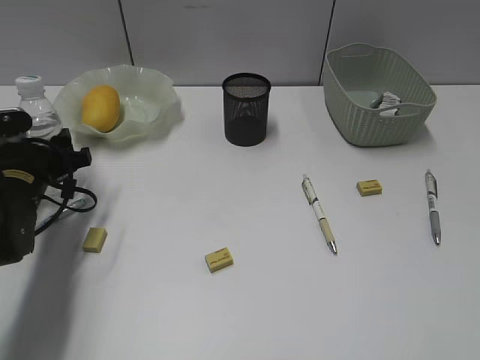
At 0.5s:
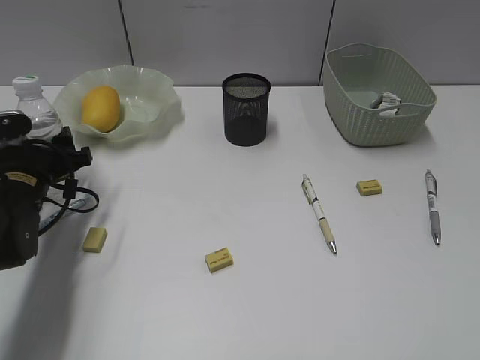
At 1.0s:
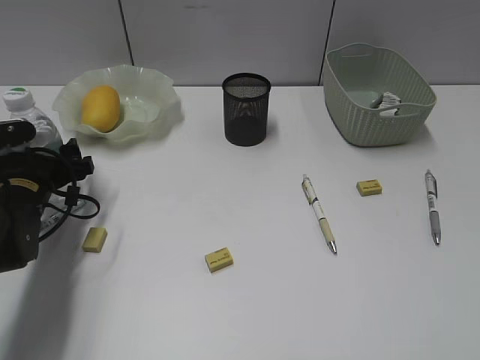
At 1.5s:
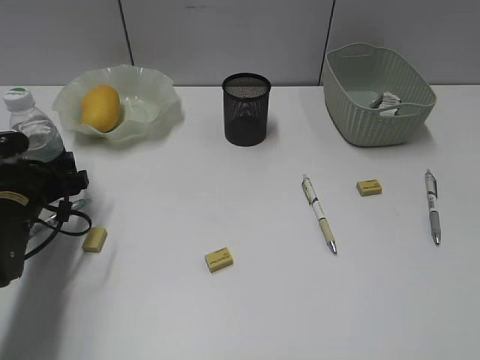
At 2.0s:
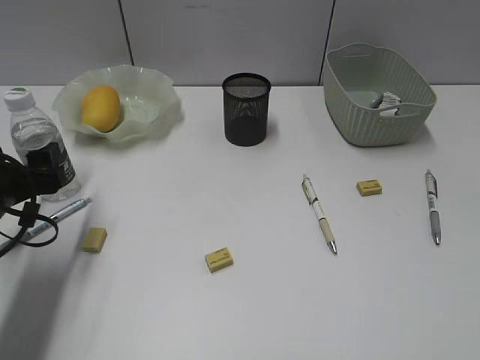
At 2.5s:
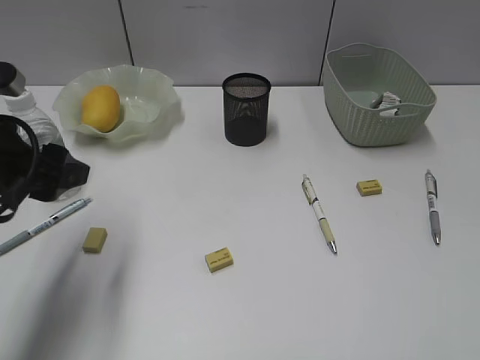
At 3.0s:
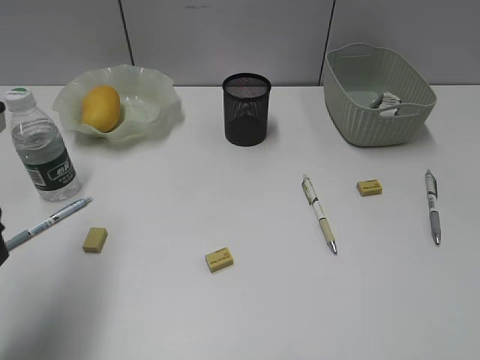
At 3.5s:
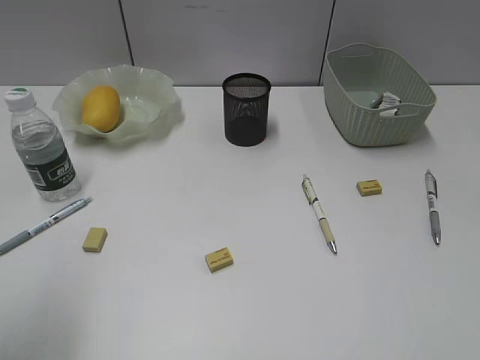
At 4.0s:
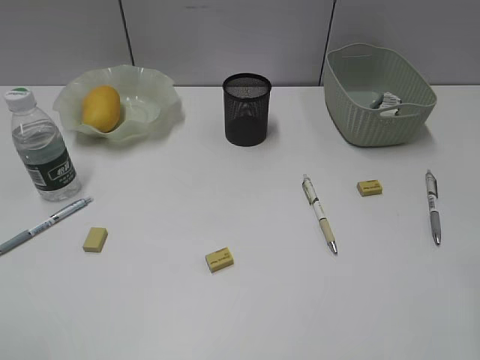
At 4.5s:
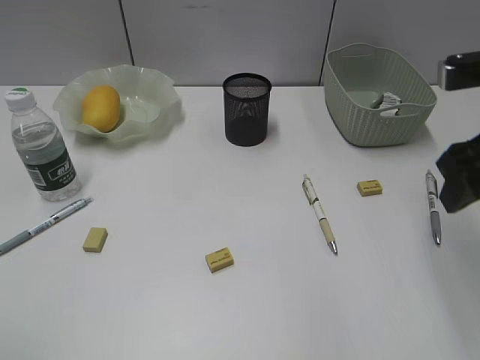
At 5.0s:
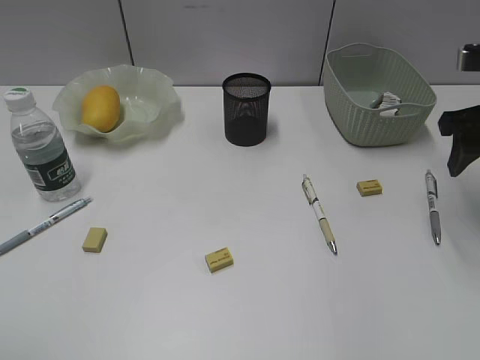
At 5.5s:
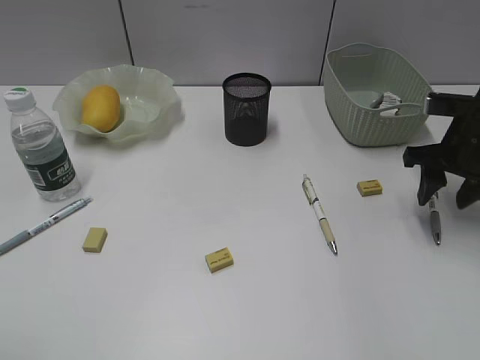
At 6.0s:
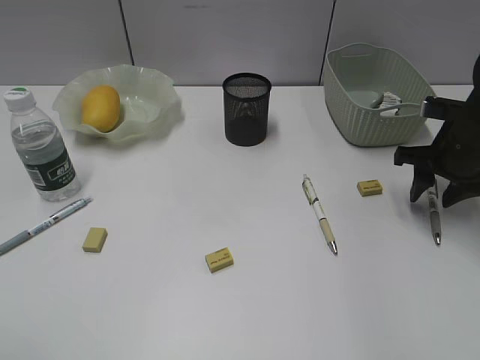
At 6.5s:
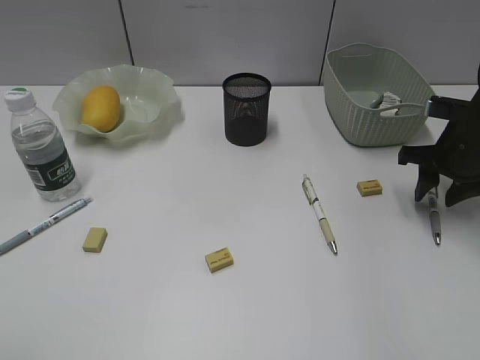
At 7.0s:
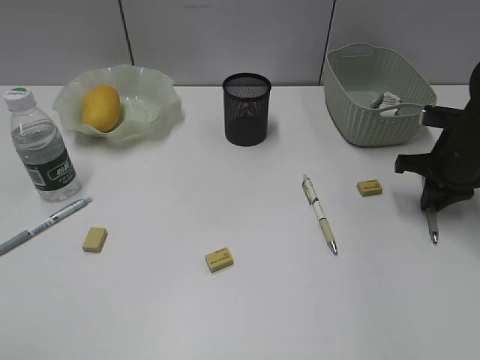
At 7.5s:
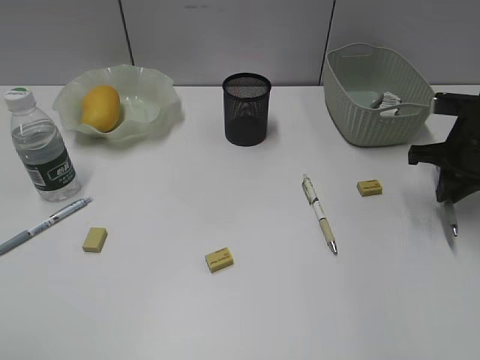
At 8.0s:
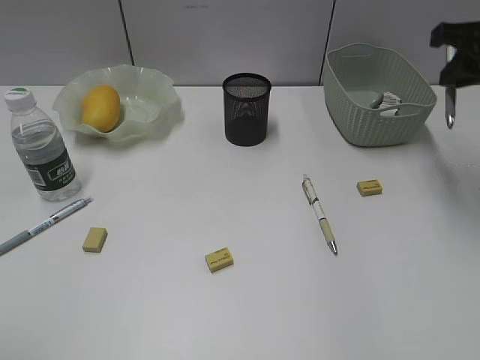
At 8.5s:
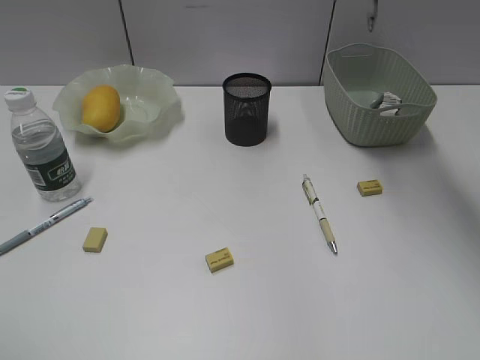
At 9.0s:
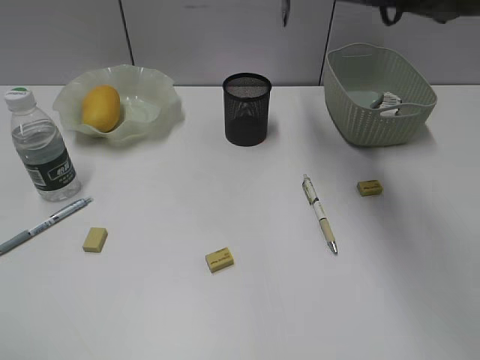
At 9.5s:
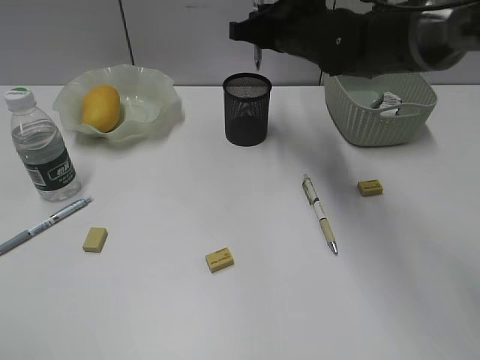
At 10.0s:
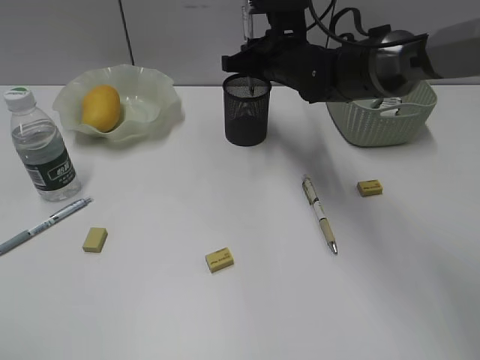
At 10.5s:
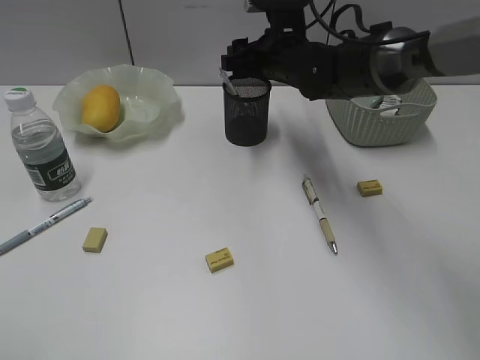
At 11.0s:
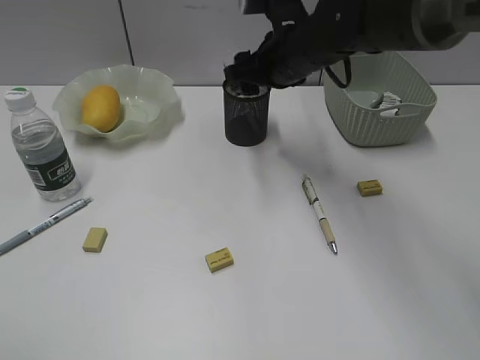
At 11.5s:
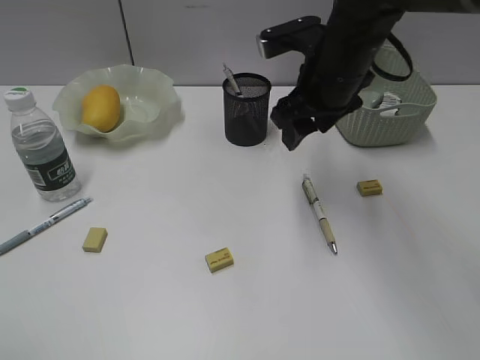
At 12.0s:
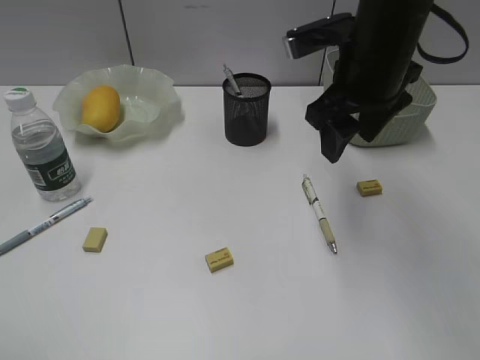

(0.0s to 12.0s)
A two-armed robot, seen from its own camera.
Step, 2.0s - 7.0s: Grasp the gray pen with right gripper.
Step, 7.5s - 10.0s: Place the gray pen in pen holder with right gripper.
0.0s - 2.0s: The left gripper is displaced backward by roughly 5 cm.
2.0s - 4.0s: The left gripper moves backward and upward, some 30 cm, and closes.
4.0s - 6.0s: The right gripper shifts roughly 25 cm forward and downward.
6.0s - 8.0s: The right gripper moves upward, about 15 cm, and closes its fingers.
8.0s - 10.0s: The right gripper shifts approximately 25 cm to the left, downward and forward.
10.0s - 12.0s: The right gripper travels backward, upward and to the right by roughly 15 cm, and opens.

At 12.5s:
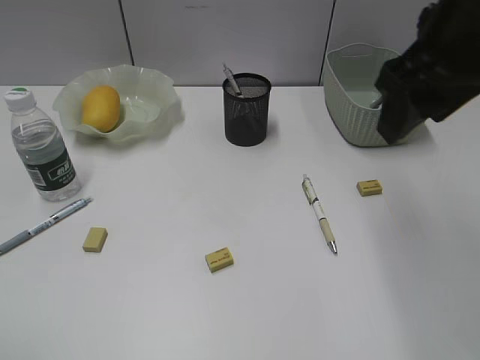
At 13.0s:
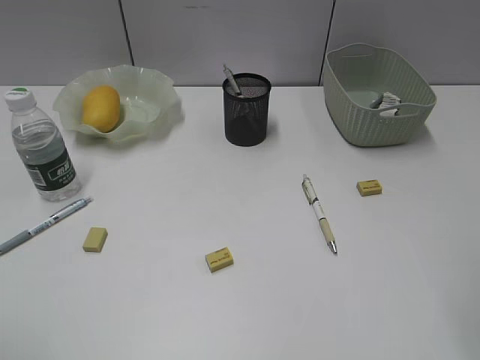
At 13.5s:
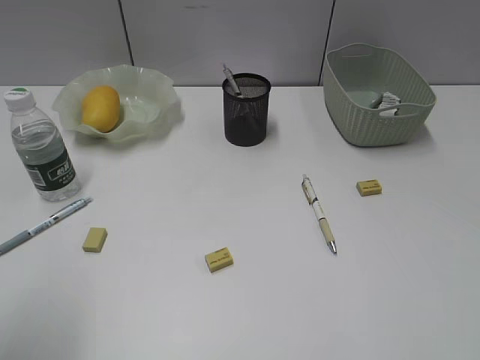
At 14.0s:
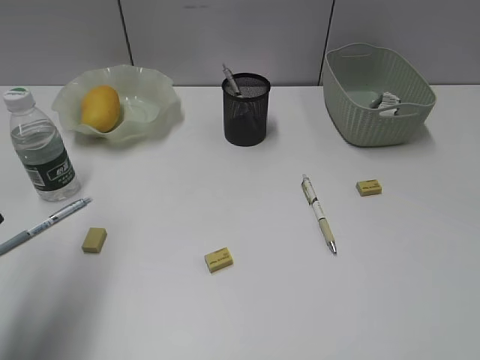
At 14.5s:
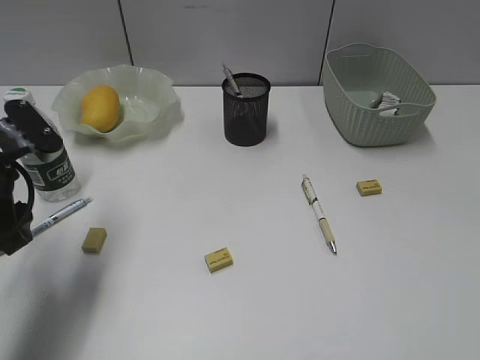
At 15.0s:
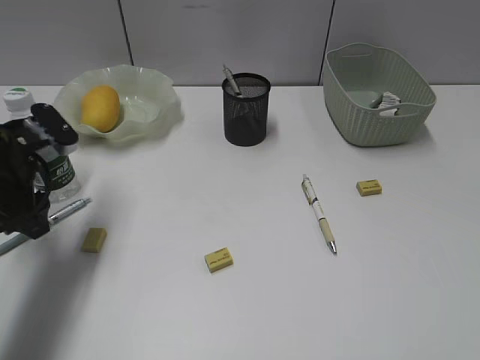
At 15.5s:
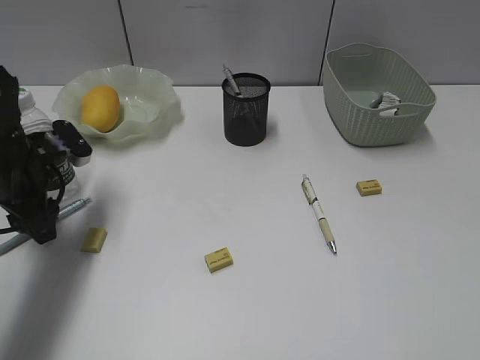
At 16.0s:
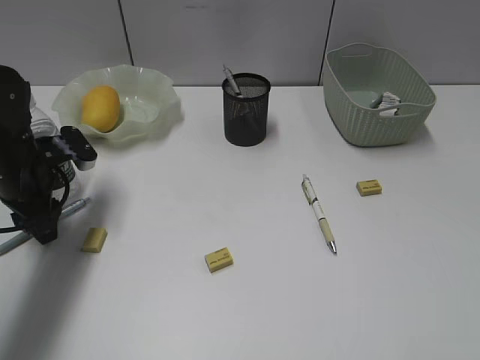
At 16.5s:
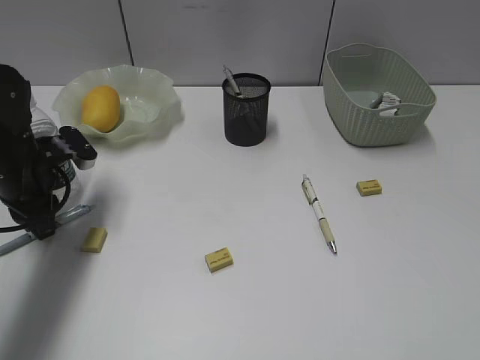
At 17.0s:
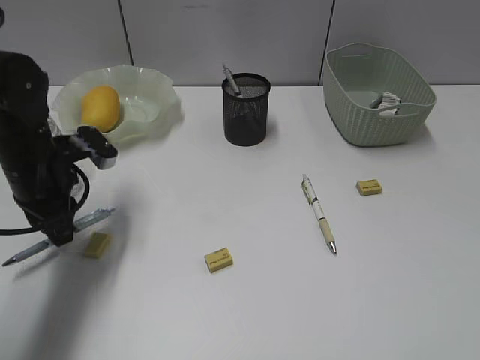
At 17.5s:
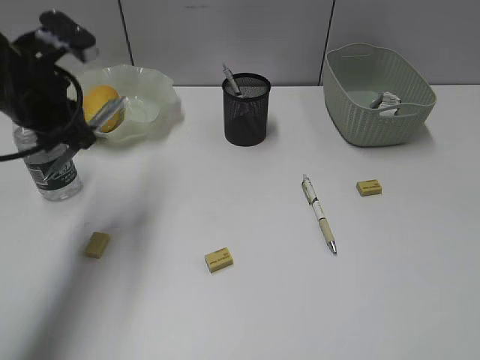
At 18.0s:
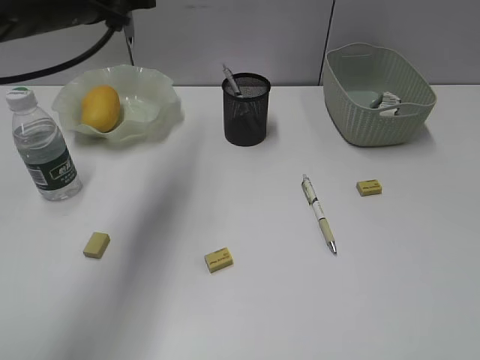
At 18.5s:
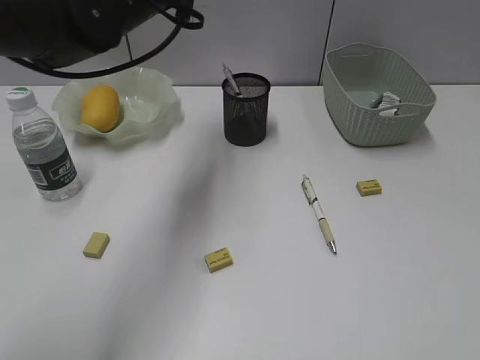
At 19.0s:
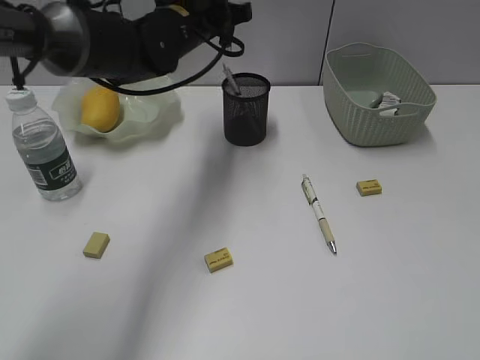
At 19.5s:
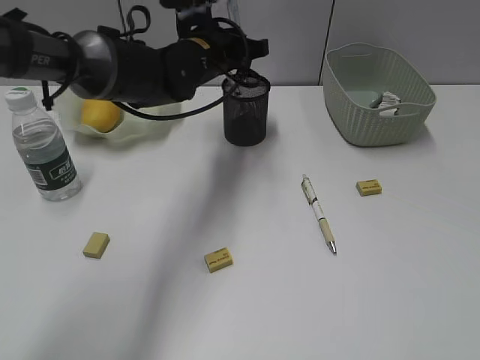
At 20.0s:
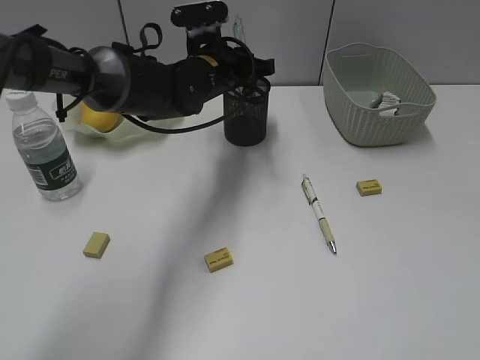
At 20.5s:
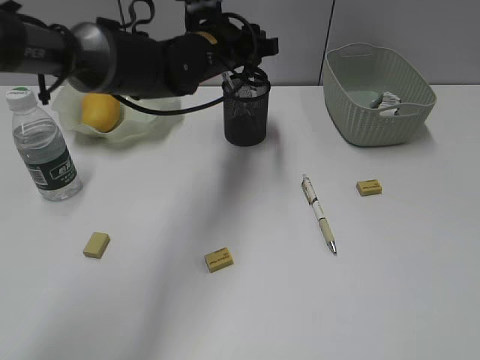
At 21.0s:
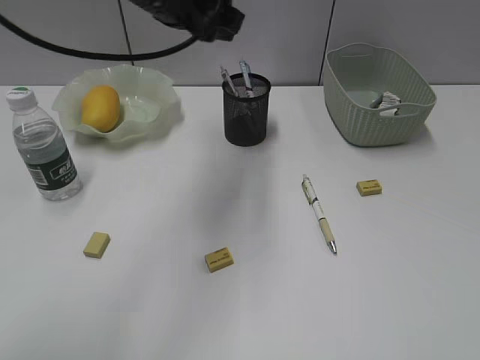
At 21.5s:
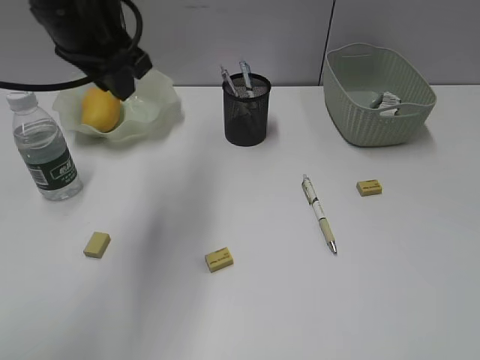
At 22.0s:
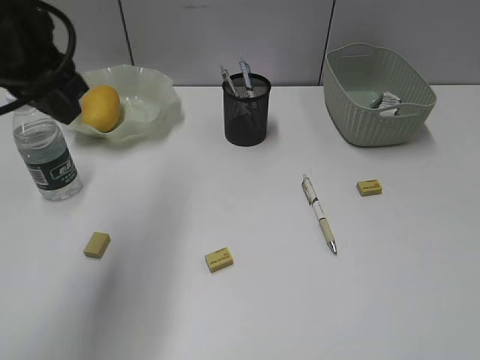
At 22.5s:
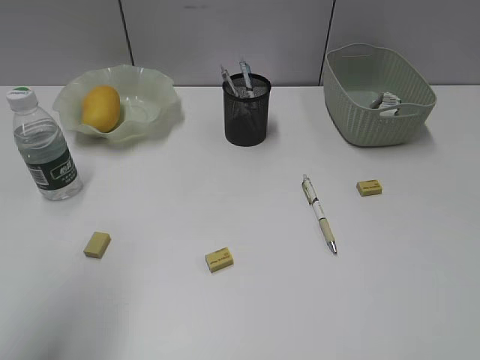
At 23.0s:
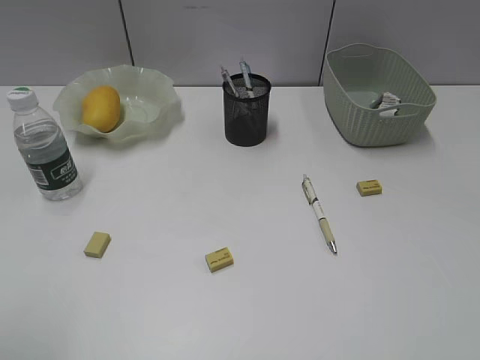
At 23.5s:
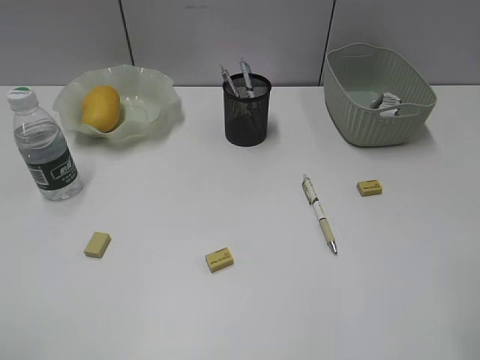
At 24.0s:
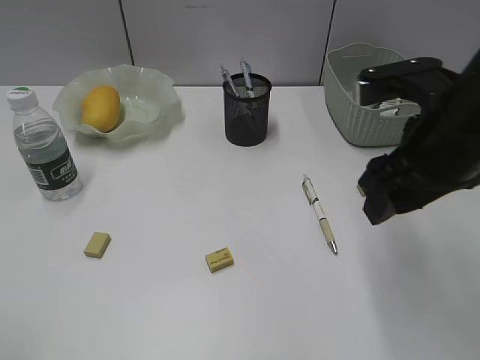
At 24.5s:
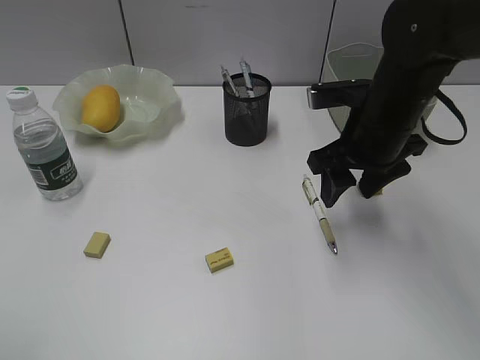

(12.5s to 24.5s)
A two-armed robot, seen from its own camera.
Step, 12.5s - 16.5s: Grasp the blue pen with left gripper.
Step, 17.0s - 20.0s: Place the blue pen in pen holder with left gripper.
12.5s - 14.5s: The left gripper shifts approximately 25 cm forward, while the right gripper moves backward and to the right, approximately 25 cm.
14.5s - 16.5s: The left gripper moves forward and downward, roughly 10 cm, and closes its fingers.
16.5s - 18.5s: The left gripper shifts about 25 cm upward and to the right.
18.5s - 20.5s: The left gripper moves downward and to the right, approximately 10 cm, and opens up.
20.5s - 22.5s: The left gripper goes about 35 cm backward and to the left.
22.5s - 24.5s: The right gripper is displaced forward and to the left by roughly 35 cm; the left gripper moves backward and to the left, some 15 cm, and opens.

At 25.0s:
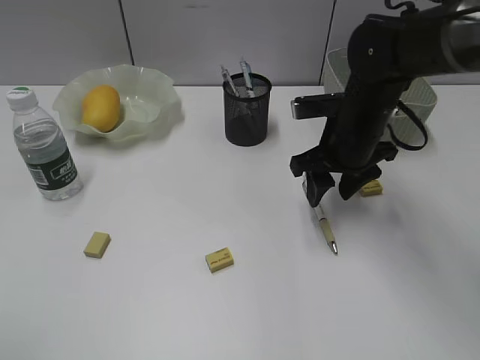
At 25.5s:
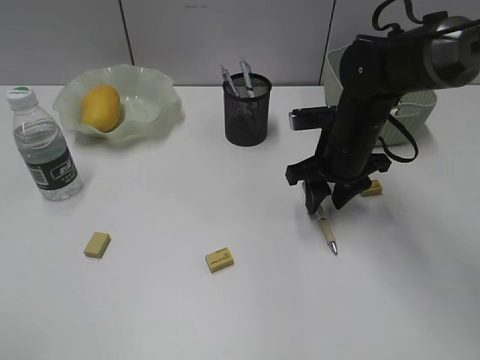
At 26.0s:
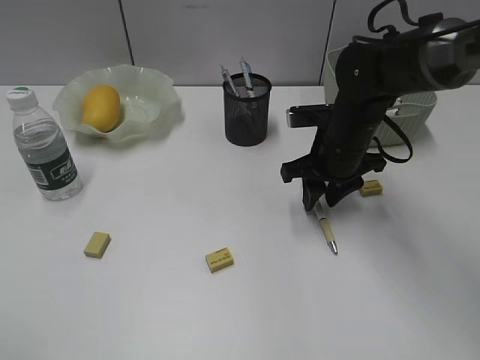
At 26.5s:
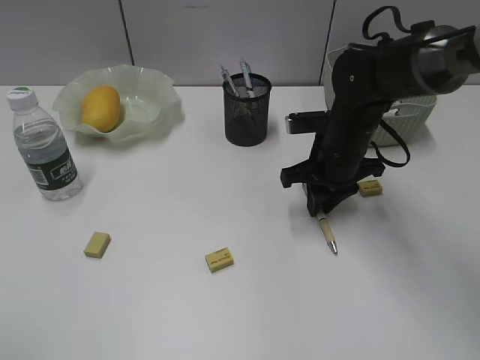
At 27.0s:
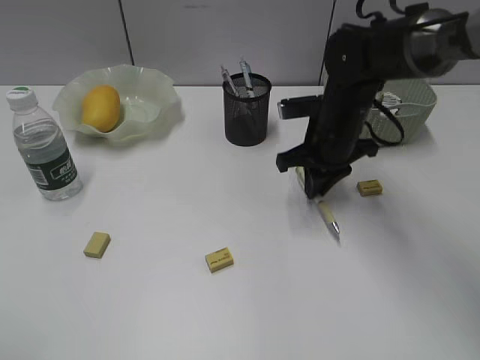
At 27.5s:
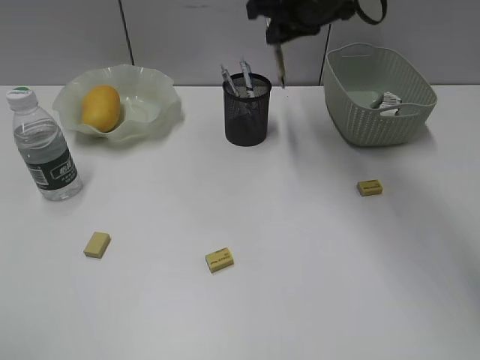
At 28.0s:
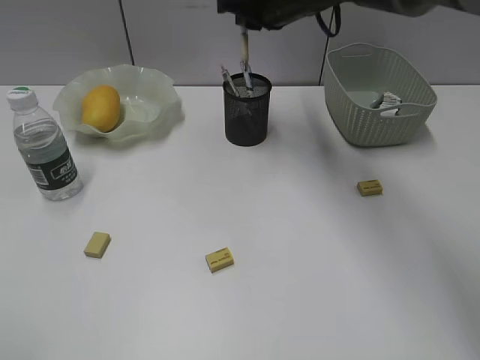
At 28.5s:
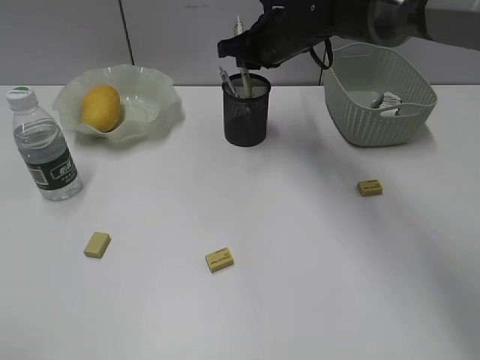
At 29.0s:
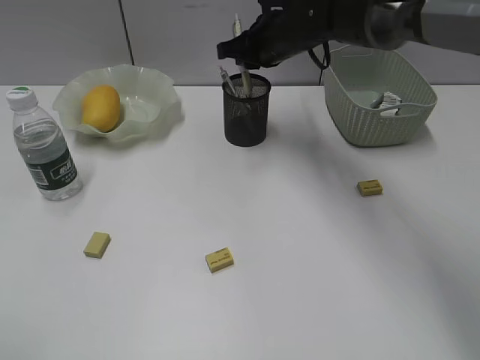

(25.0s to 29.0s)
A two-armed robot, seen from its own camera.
25.0s - 27.0s: The right gripper closes its fingers.
27.0s - 29.0s: The right gripper heads forward, to the left and upward, covering approximately 15 cm.
